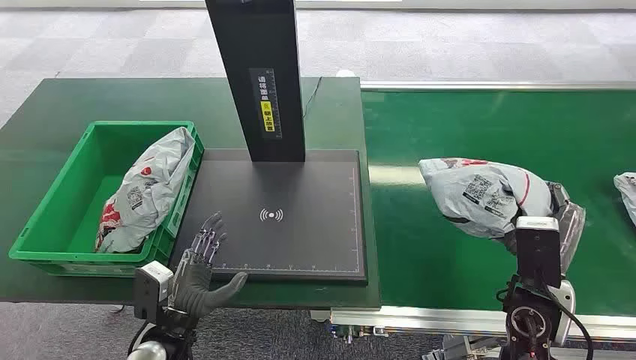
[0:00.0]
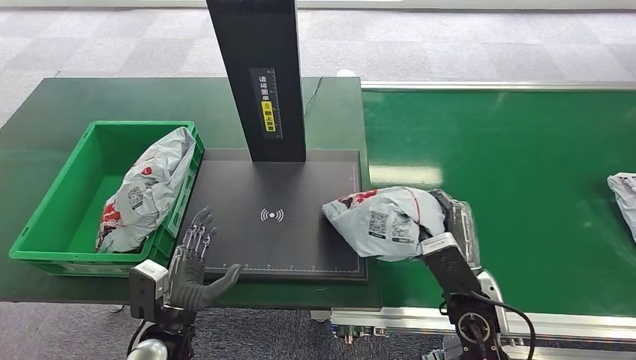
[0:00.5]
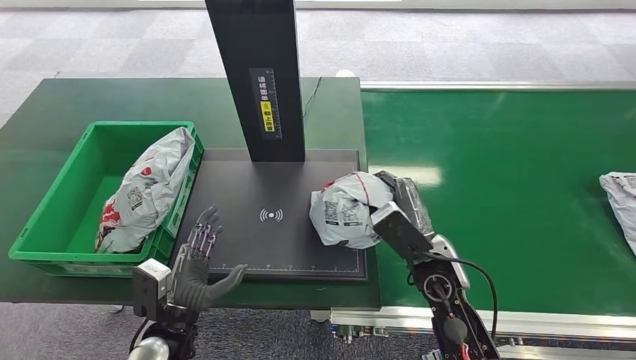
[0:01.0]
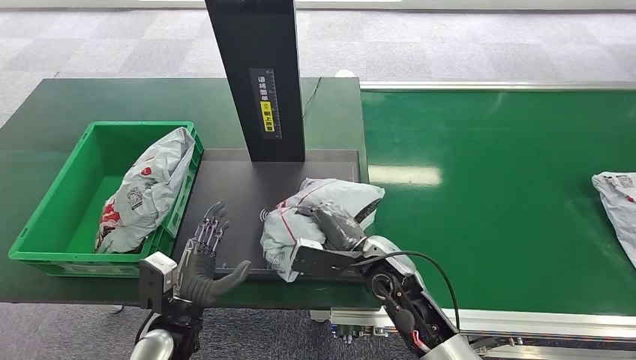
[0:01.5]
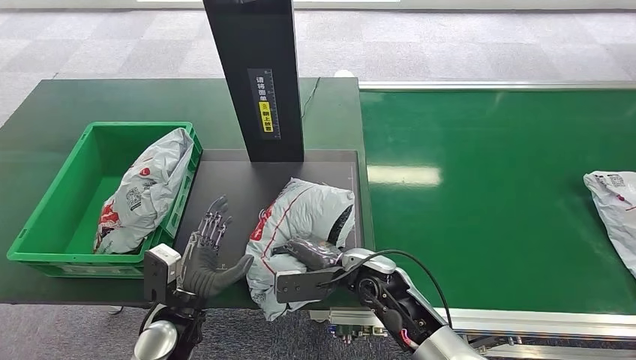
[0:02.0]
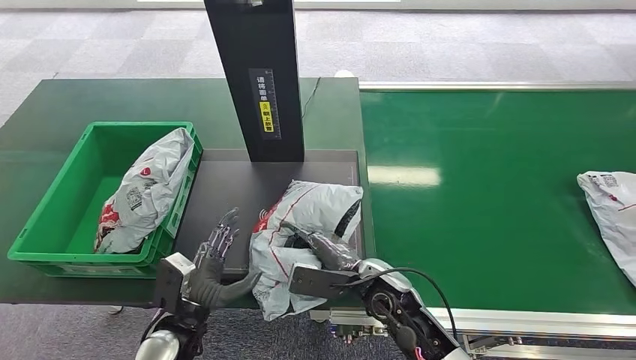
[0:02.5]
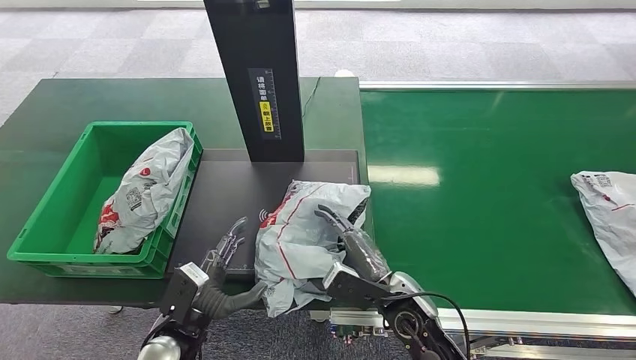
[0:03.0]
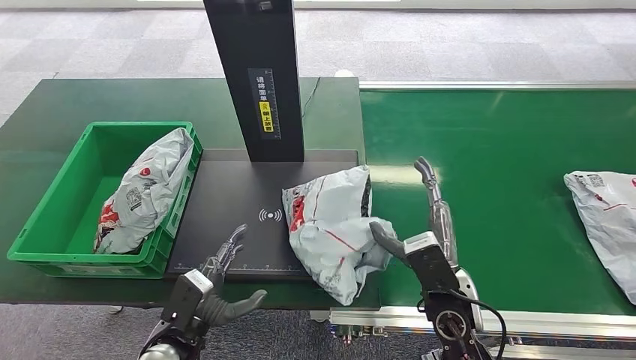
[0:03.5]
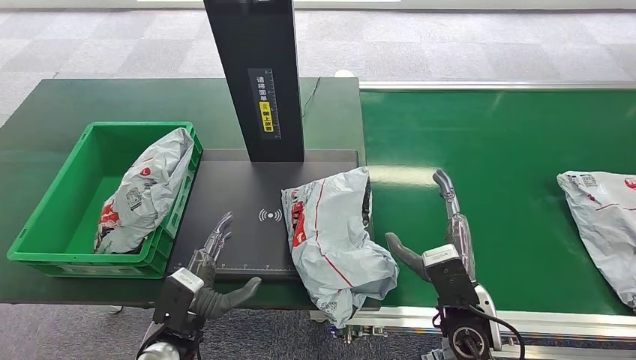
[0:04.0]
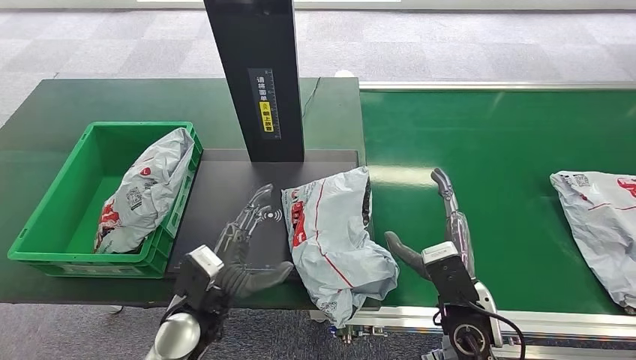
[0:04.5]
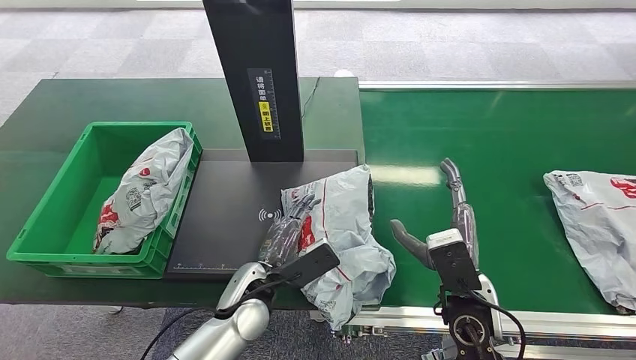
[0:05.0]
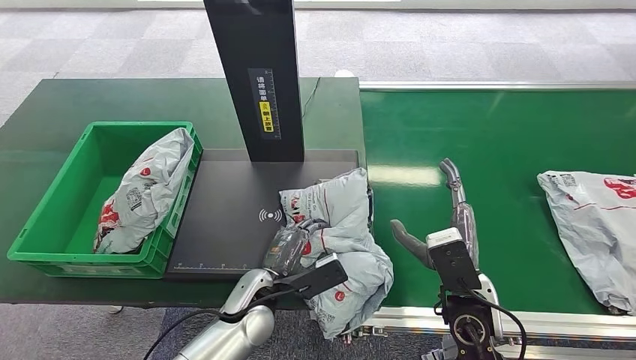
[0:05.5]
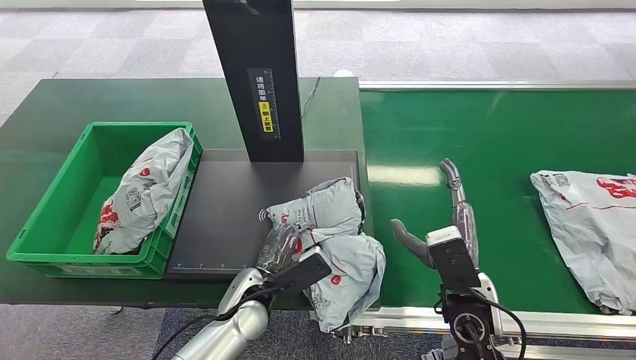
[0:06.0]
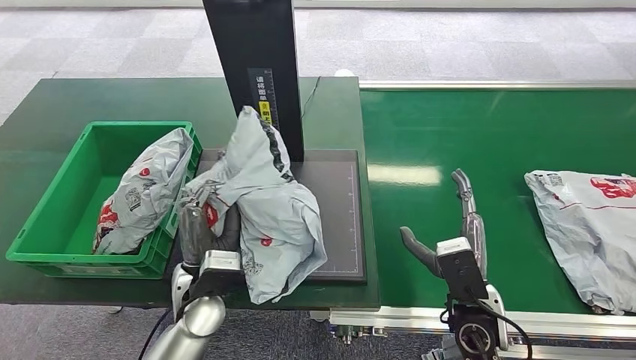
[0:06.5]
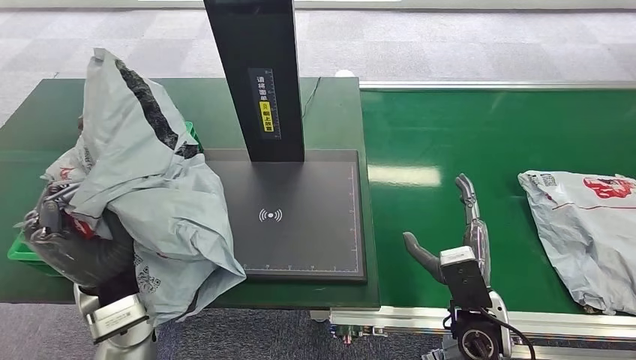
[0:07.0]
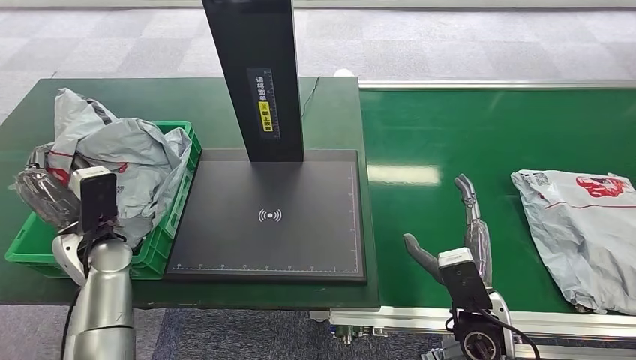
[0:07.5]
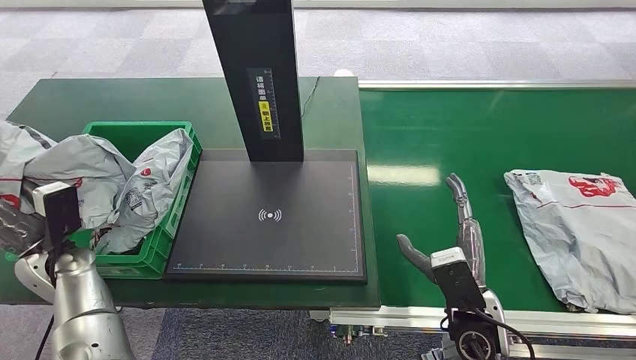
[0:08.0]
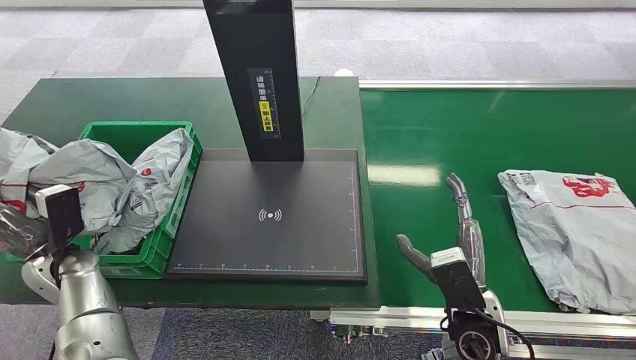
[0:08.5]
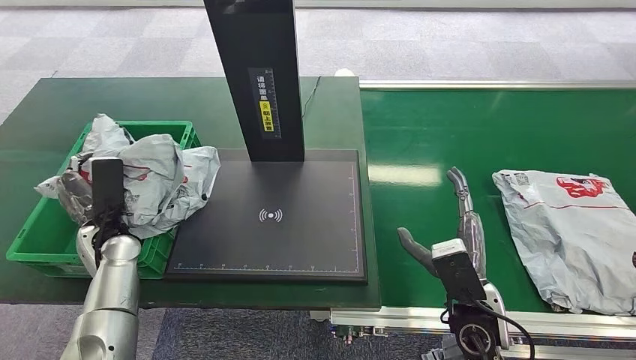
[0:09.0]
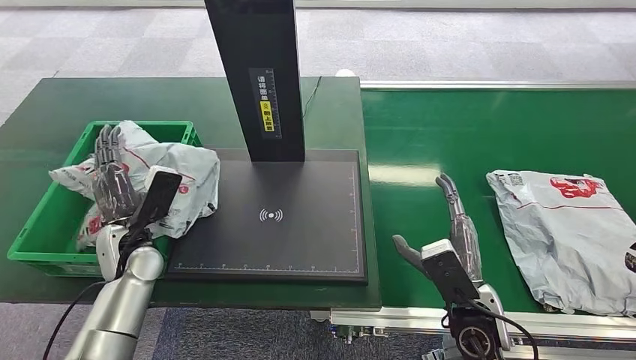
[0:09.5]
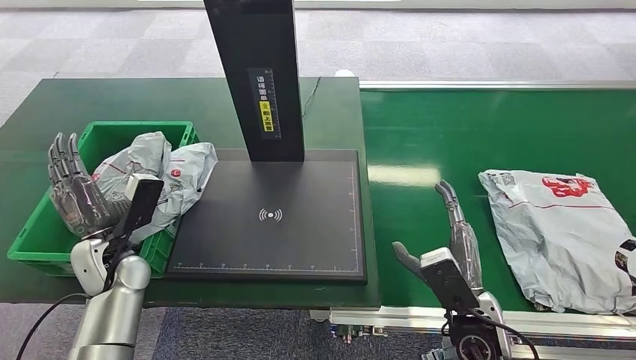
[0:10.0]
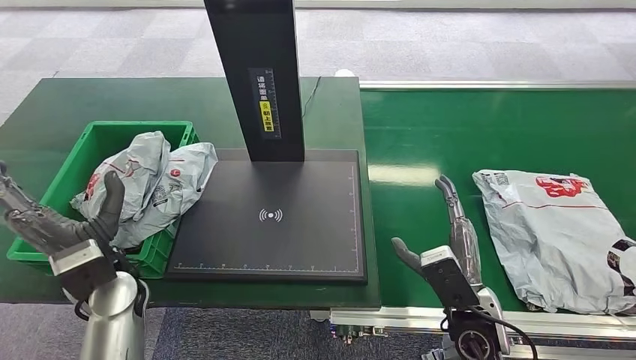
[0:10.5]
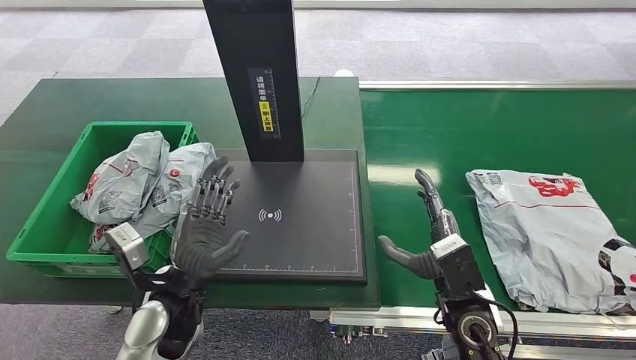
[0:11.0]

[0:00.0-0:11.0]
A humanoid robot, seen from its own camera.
Task of the whole recording: Weigh the package on the weighing device and place it in the left basket.
0:02.0 to 0:03.5: The right hand travels to the right and backward by roughly 10 cm.
0:03.5 to 0:05.5: The left hand goes about 15 cm to the right and forward.
0:09.0 to 0:11.0: The left hand shifts some 20 cm to the right and backward.
